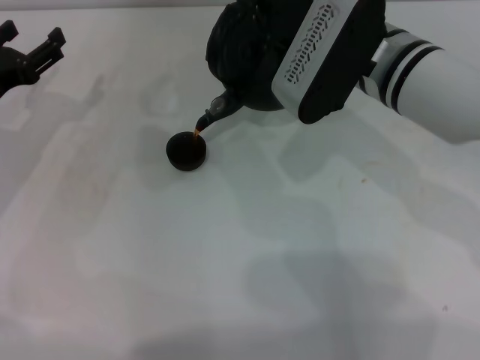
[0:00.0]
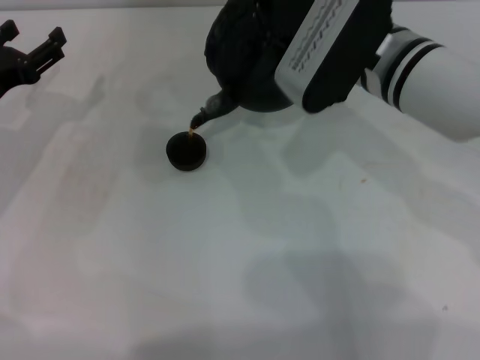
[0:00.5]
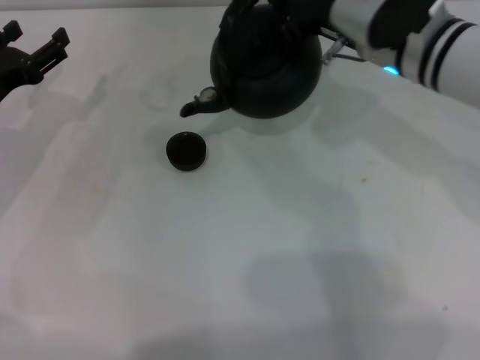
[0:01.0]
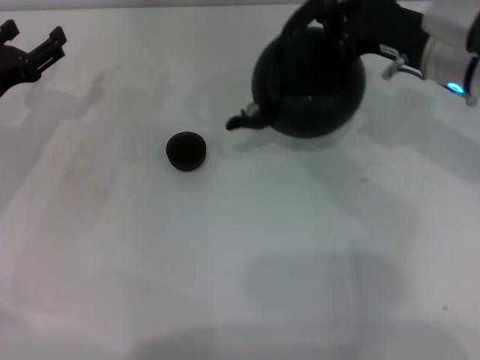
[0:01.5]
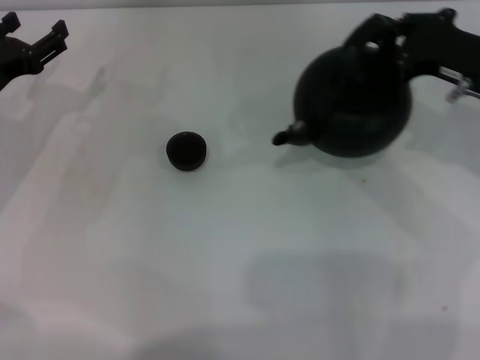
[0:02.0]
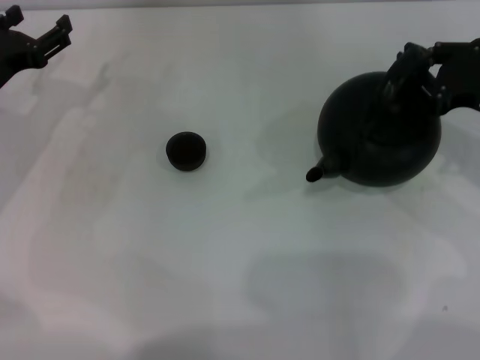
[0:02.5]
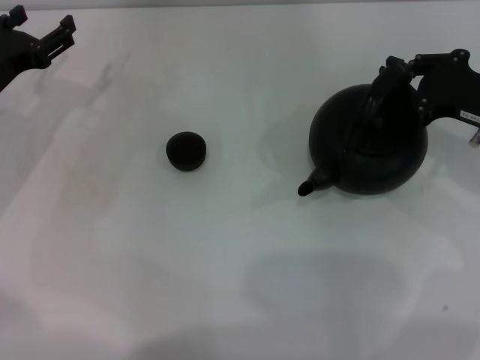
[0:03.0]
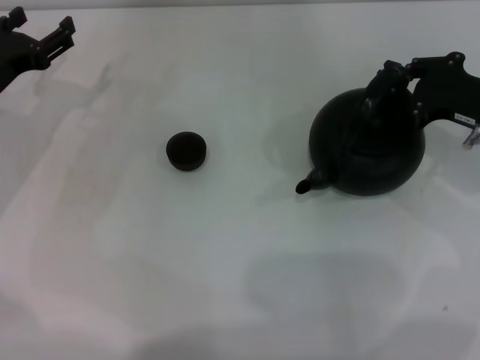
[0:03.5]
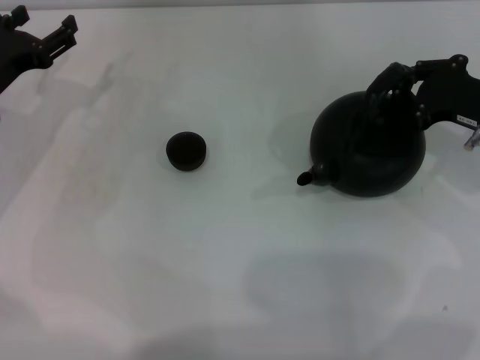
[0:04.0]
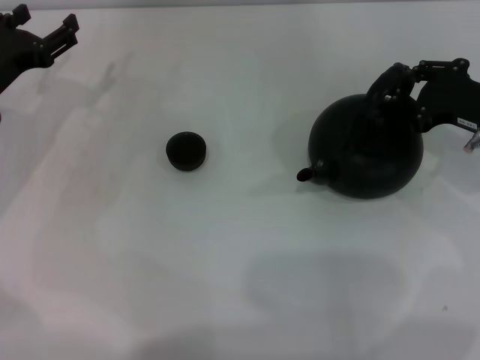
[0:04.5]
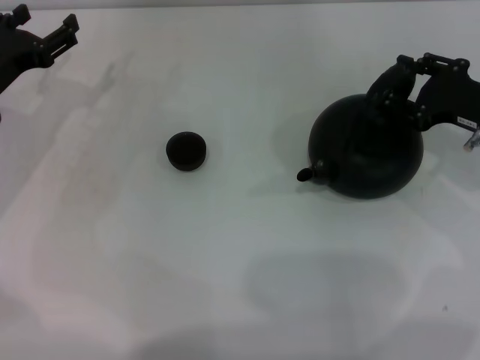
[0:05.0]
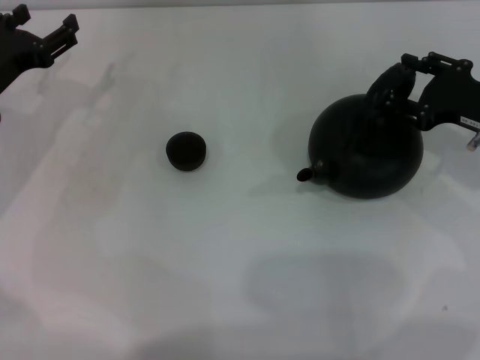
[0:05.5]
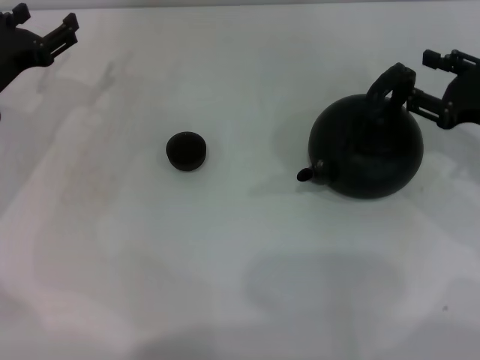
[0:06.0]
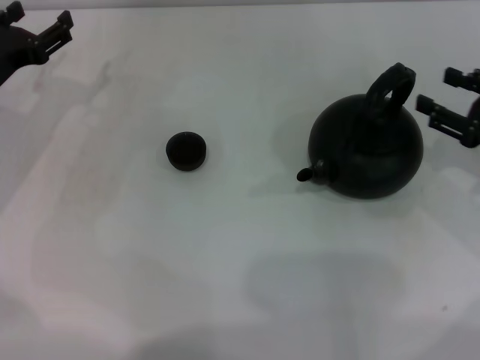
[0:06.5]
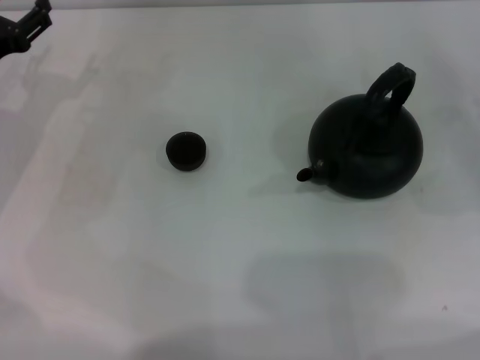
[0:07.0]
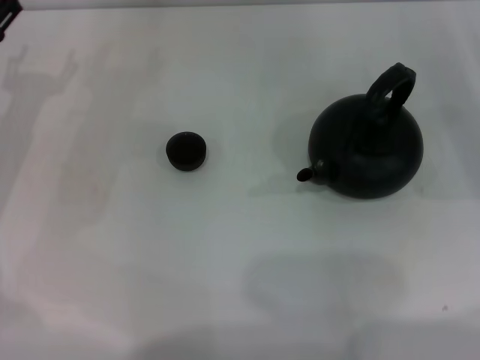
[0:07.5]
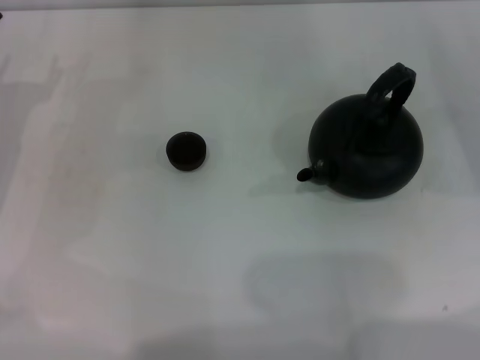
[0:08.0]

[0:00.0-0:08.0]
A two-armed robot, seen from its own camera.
Task of the whole recording: Grasp the handle of the teapot with one hand and pour tea into the teacup.
Step, 0:01.0 to 0:06.0: Put down the teapot with the right gripper.
0:00.0 to 0:02.0: The right gripper moves to the right, approximately 15 cm.
0:02.0 to 0:04.0: The right gripper shifts by roughly 5 cm.
0:04.0 to 0:06.0: The right gripper opens its fingers.
0:06.0 to 0:08.0: The right gripper shifts approximately 10 cm to the right.
